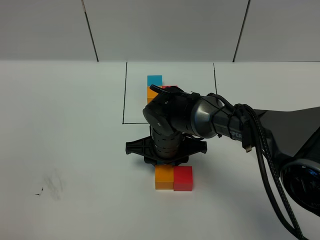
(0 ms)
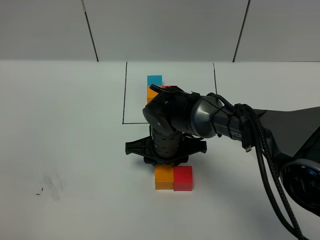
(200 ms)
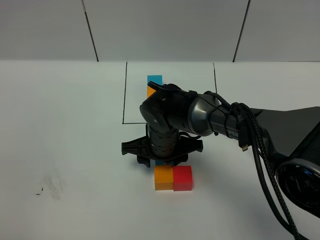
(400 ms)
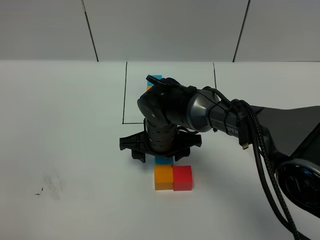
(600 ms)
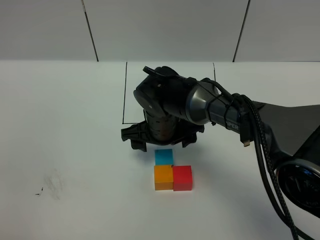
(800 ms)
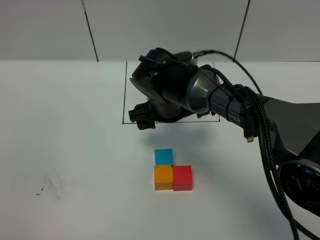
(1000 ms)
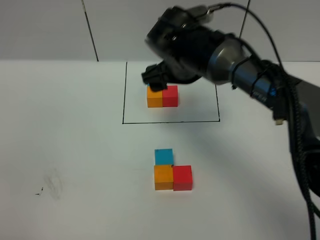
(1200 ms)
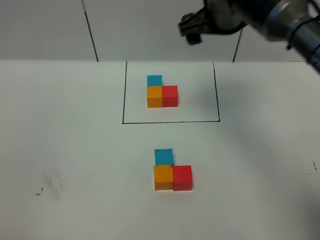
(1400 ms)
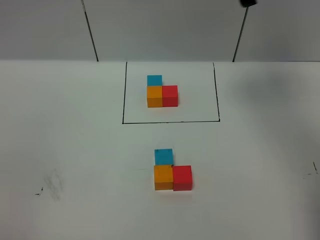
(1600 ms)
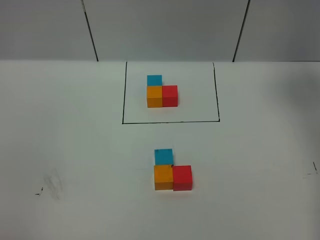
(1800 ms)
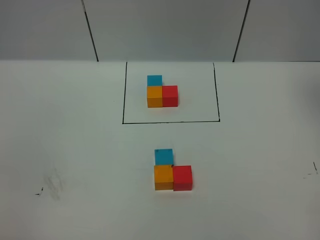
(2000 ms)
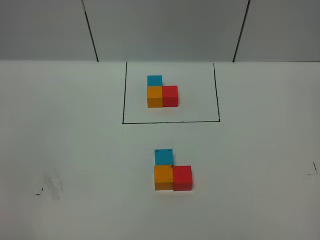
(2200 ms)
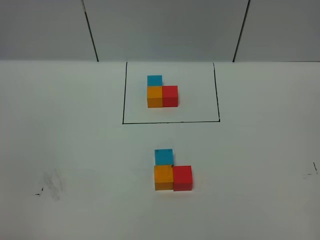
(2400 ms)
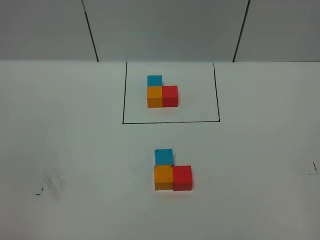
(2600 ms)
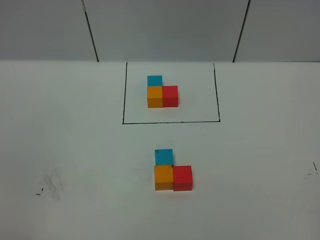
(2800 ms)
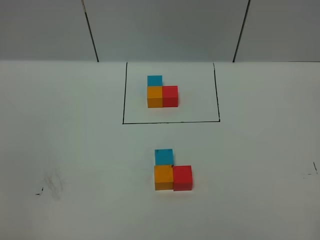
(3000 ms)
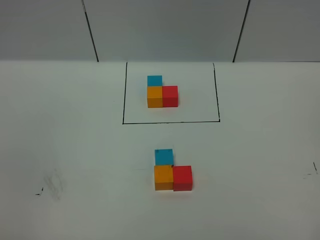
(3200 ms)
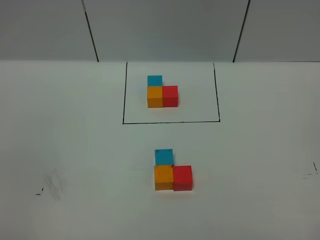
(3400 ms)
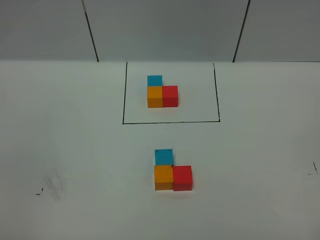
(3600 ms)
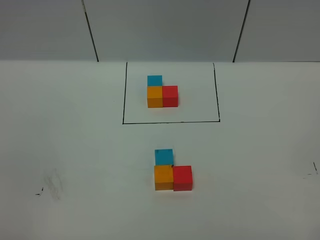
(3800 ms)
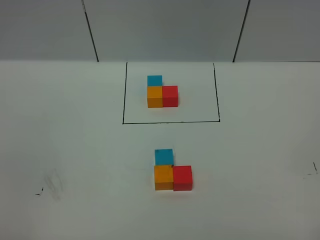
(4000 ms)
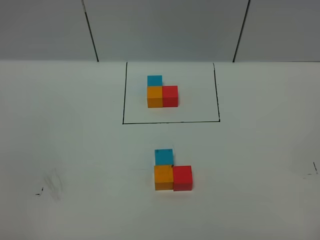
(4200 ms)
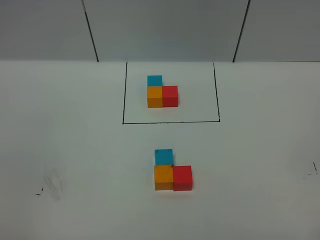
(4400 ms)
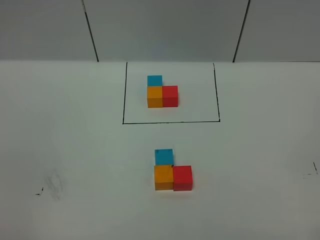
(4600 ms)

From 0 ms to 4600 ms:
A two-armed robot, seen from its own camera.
Task of the whole recording: According to the building block template in front, assemble the scattered blocks together.
From 0 ms to 1600 ms: The right gripper moves upward and to the right, roughly 35 cm, and opens.
From 1600 ms to 3000 ms: The right gripper is displaced backward by about 40 cm.

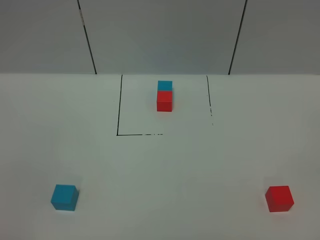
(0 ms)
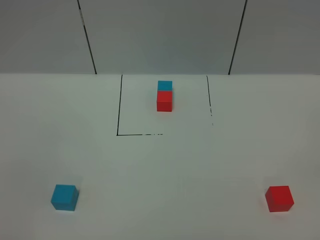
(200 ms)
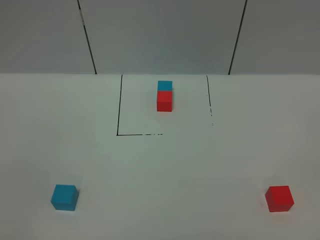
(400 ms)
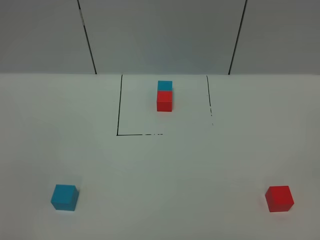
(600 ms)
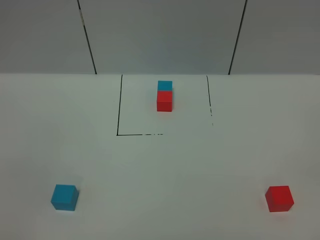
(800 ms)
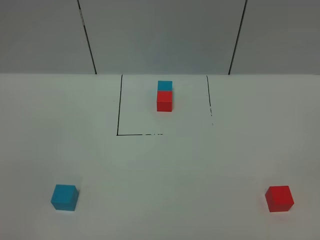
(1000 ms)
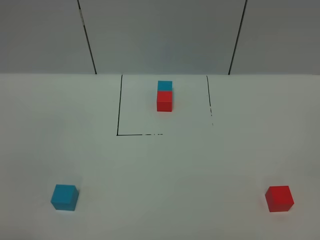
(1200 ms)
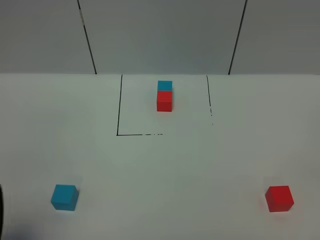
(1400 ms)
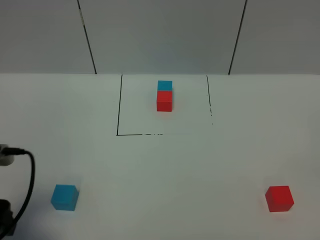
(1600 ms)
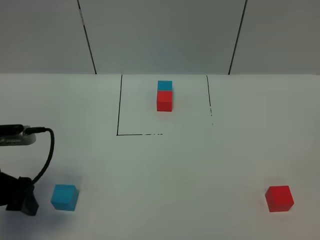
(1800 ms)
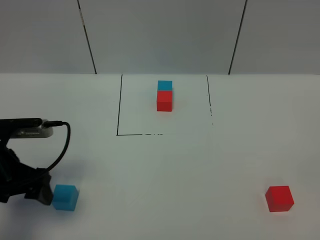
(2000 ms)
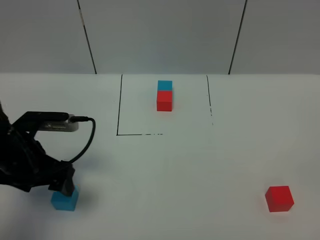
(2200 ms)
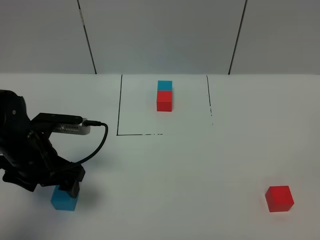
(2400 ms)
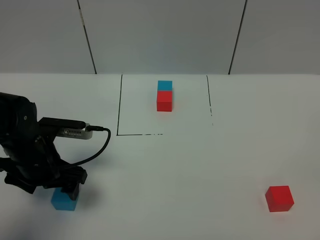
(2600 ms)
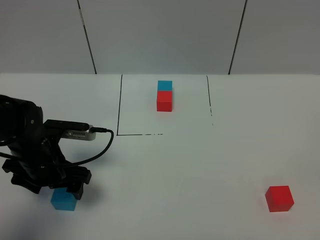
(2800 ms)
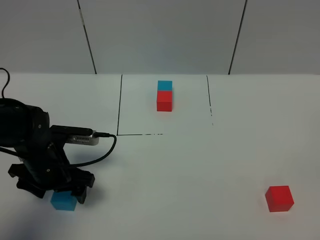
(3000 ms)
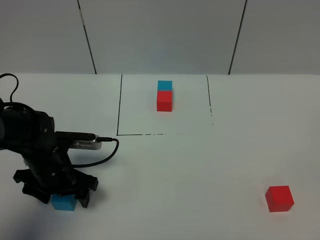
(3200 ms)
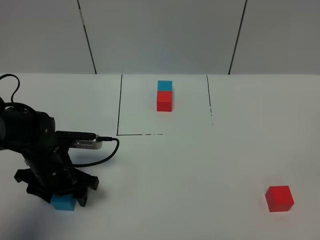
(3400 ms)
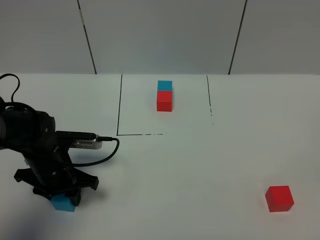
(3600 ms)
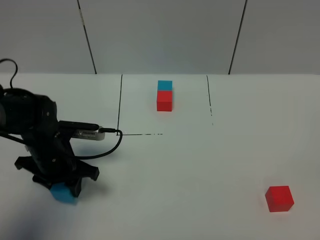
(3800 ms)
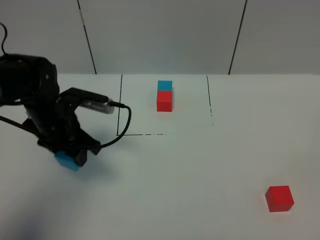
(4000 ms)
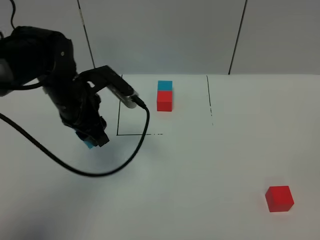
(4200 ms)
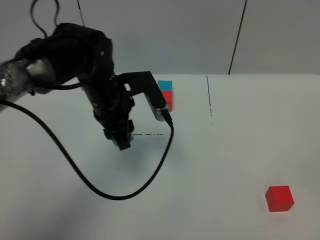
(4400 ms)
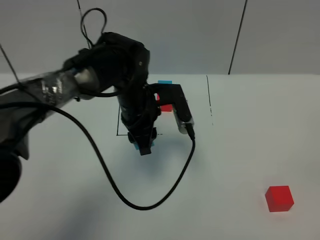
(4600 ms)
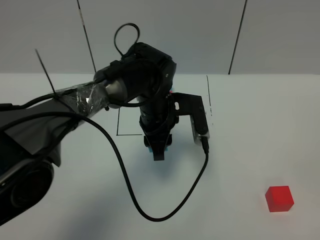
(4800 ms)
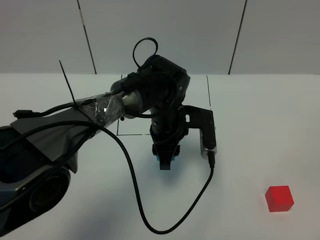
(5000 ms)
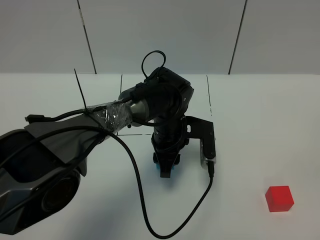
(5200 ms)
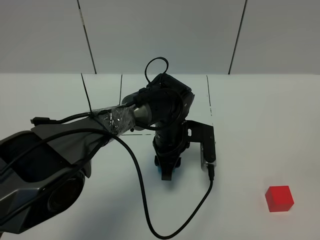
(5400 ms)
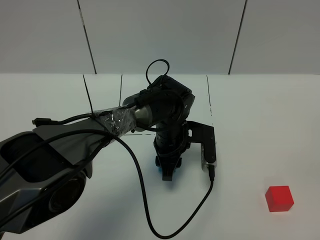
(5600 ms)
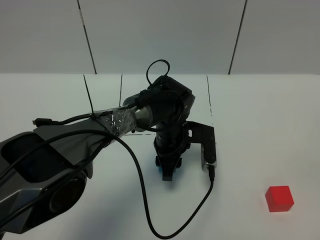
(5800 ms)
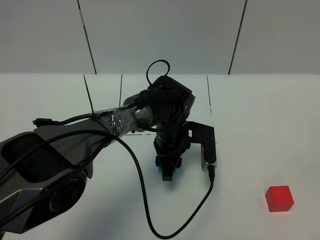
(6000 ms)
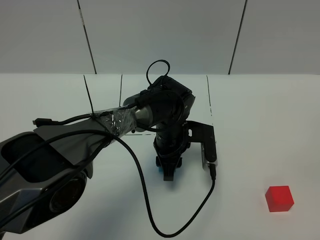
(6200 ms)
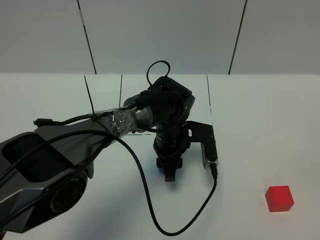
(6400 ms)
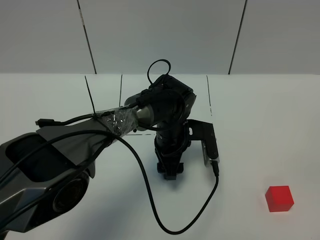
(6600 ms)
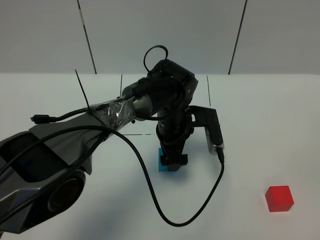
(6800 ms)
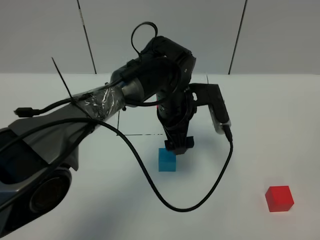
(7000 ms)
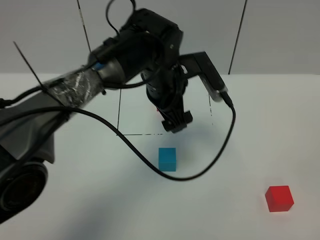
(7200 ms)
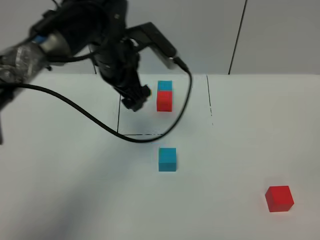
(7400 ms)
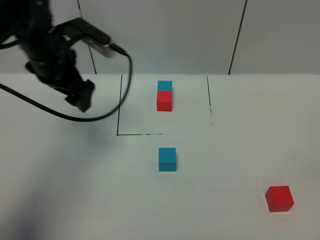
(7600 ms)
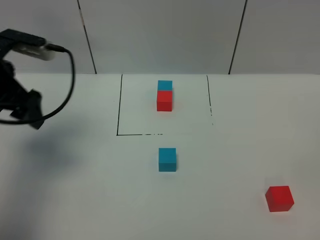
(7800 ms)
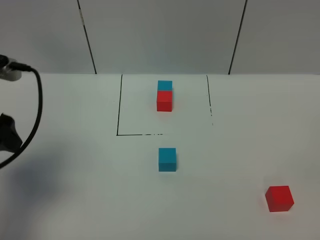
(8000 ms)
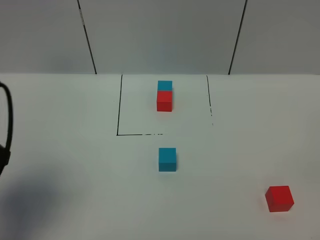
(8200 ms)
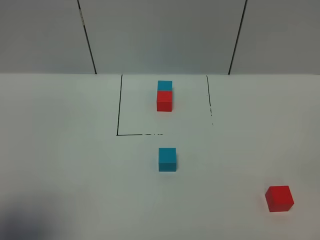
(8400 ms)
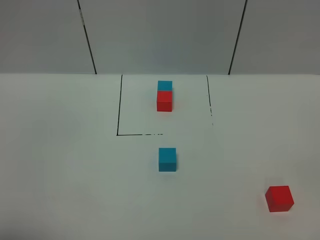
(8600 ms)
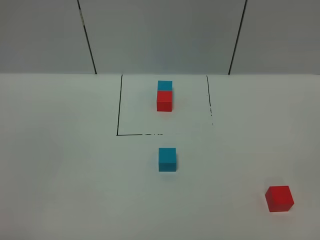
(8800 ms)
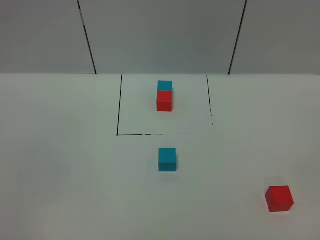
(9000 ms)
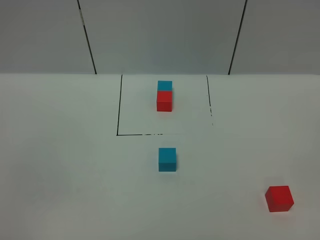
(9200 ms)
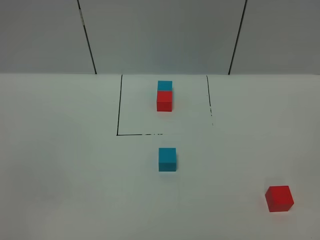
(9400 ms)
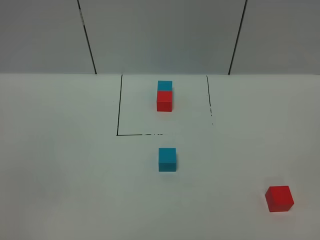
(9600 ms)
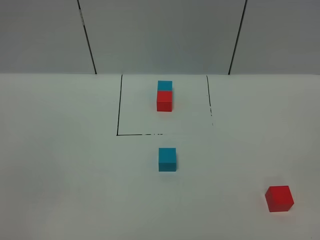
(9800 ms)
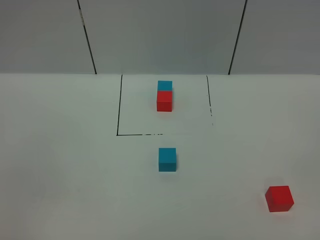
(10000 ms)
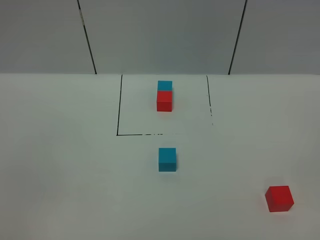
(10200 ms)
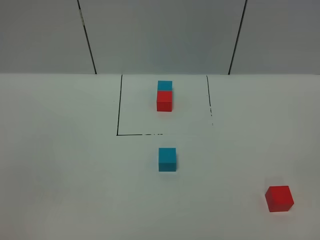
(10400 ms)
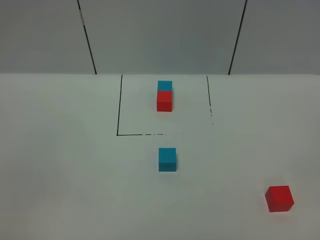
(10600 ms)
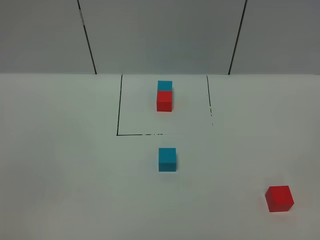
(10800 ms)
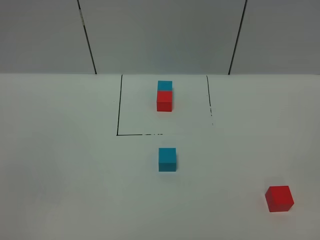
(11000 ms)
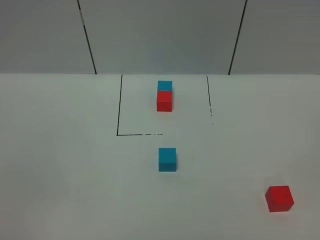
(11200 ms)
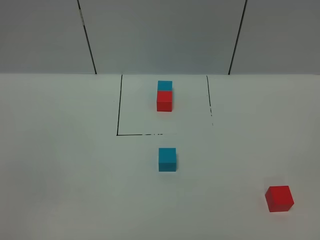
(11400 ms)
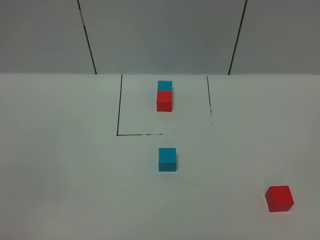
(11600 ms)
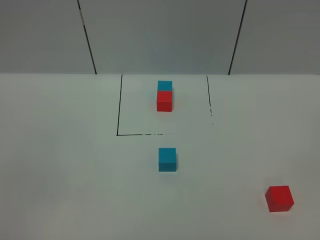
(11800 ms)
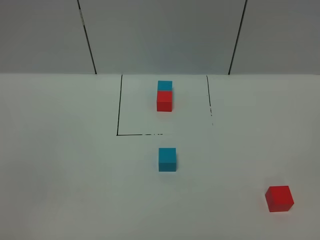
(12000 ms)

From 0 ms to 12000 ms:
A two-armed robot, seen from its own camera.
Task of the whole recording: According to the building block template in front, assemble the scattered blocks together.
Step, from 1400 ms to 6600 ms: Put the blue cube in the center of the table.
From 0 ms to 1600 ms: The left gripper shifts approximately 15 cm forward.
From 1600 ms to 3000 ms: The left gripper heads forward, downward and to the right, covering approximately 20 cm.
From 3000 ms to 4400 ms: The left gripper goes approximately 15 cm to the right, upward and forward, and closes.
From 4400 ms to 6000 ms: The left gripper is displaced downward and to the right by roughly 15 cm.
From 6000 ms to 7600 ms: The left gripper travels to the left and upward by roughly 30 cm, and opens up.
From 7600 ms to 9000 ms: The left gripper travels backward by approximately 40 cm.
From 10400 ms to 12000 ms: Neither gripper changes place.

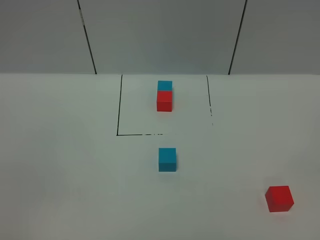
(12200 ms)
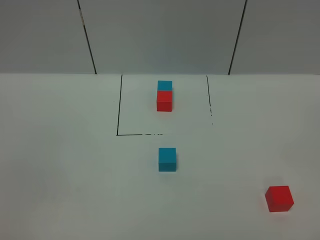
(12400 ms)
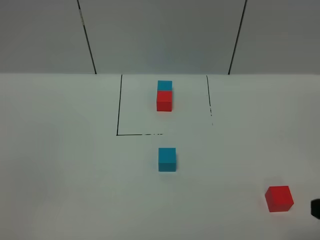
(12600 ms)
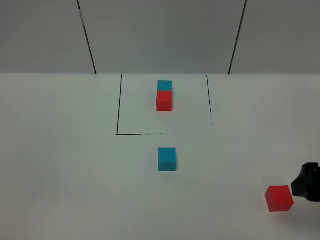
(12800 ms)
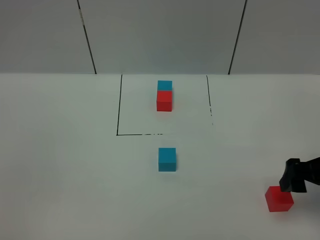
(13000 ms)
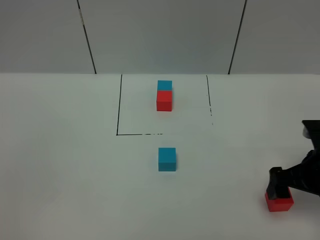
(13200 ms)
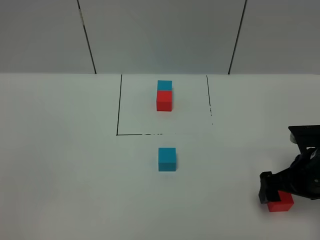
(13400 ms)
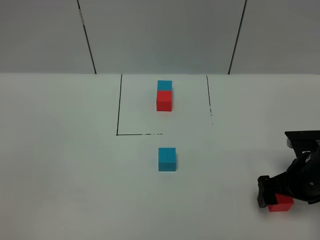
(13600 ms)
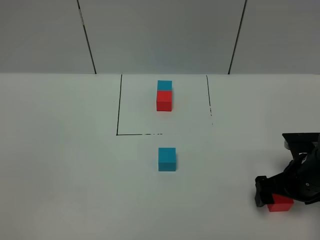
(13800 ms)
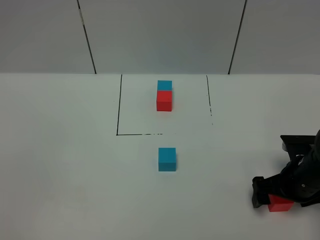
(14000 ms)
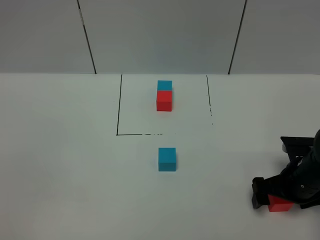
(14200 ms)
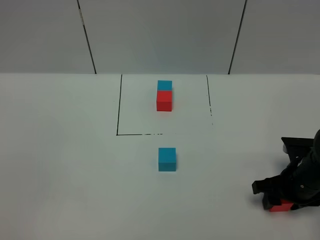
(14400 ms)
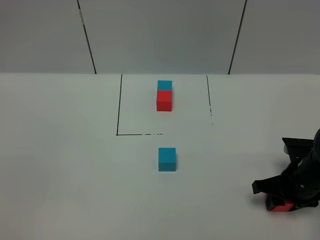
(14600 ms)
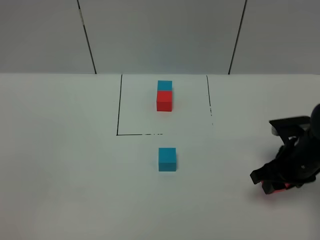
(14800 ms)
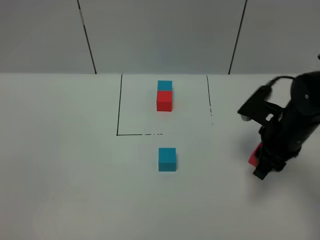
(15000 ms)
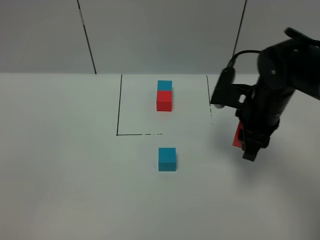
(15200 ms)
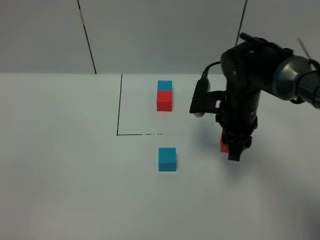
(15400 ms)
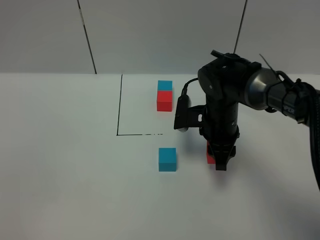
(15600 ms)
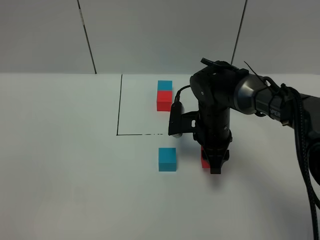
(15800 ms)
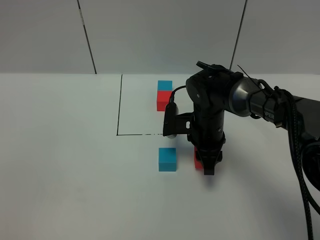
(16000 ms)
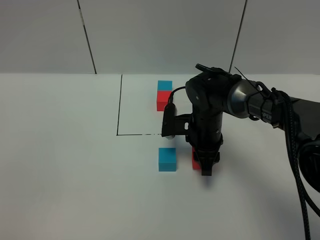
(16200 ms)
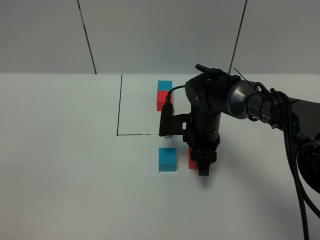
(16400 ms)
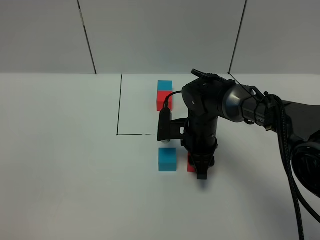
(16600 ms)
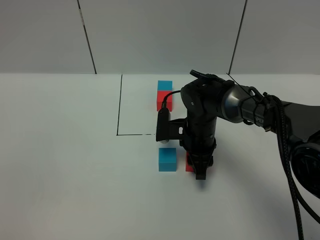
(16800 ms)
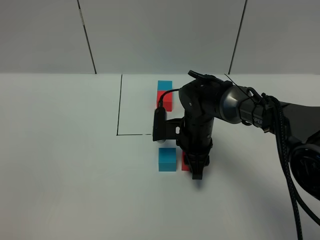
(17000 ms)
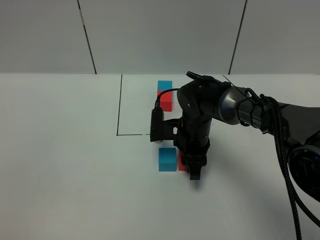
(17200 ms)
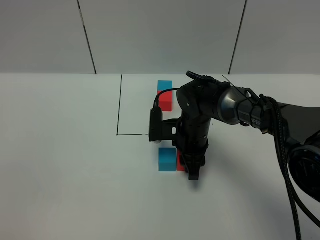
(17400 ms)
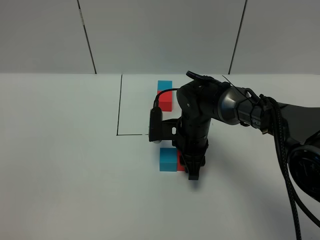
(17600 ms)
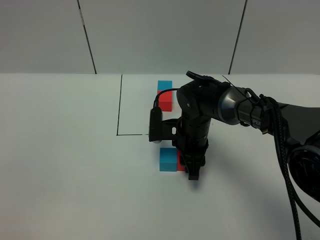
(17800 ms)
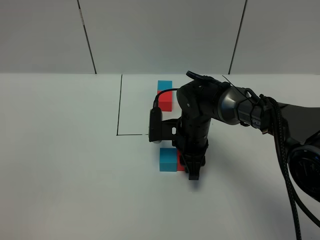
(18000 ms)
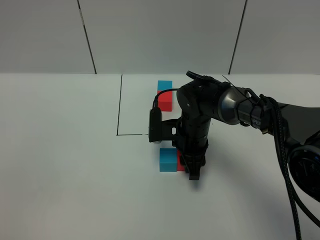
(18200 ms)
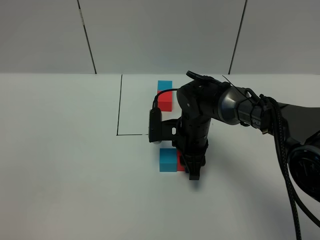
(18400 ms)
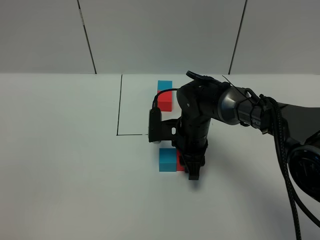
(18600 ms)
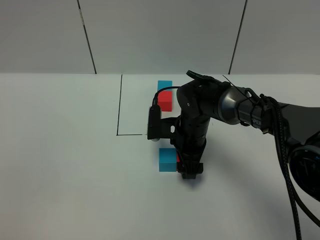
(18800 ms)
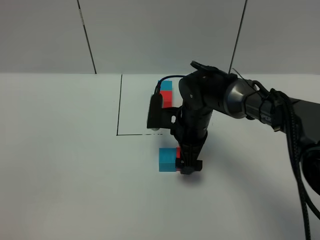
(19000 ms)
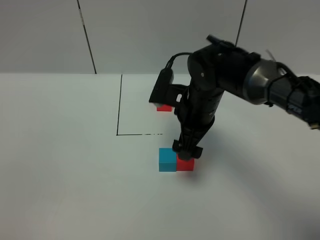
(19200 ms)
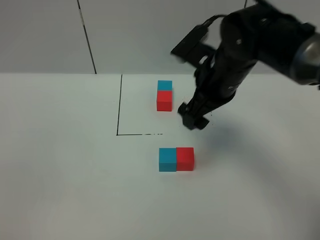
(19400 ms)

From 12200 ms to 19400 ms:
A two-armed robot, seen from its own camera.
Task of the whole recording: According to the building block template in front, assemble the scattered blocks together.
Step, from 12200 ms to 19000 ms: Put the red cube on the right of the blue cube.
From 12200 ms to 13600 ms: The right gripper moves forward and downward, approximately 30 cm.
From 13600 ms to 15000 ms: The right gripper goes approximately 10 cm upward, forward and to the left, and closes its fingers.
From 15000 ms to 16600 ms: The right gripper moves to the left, downward and forward, roughly 15 cm.
From 16600 ms to 18000 ms: The grippers stay close to where they were, moving slightly.
From 18000 ms to 19400 ms: The right gripper travels upward by some 20 cm, and opens its fingers.
